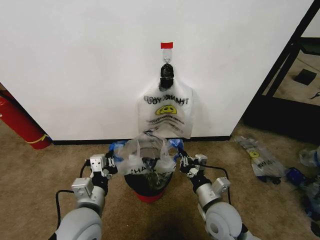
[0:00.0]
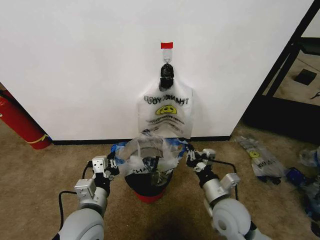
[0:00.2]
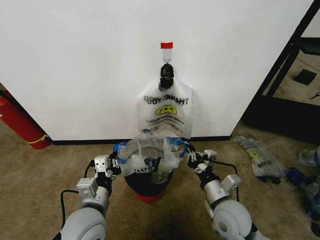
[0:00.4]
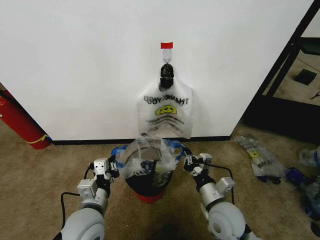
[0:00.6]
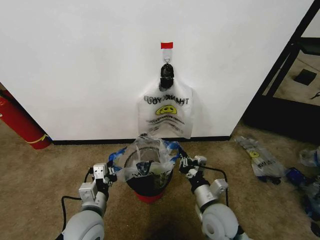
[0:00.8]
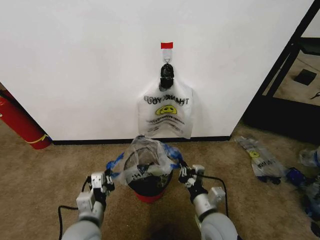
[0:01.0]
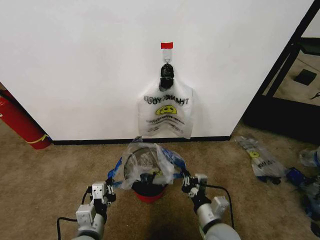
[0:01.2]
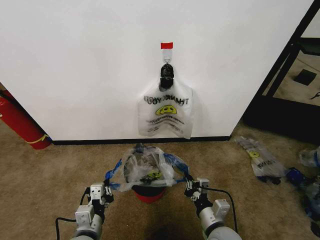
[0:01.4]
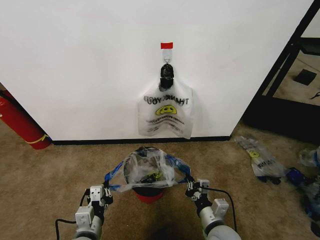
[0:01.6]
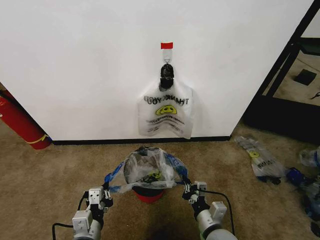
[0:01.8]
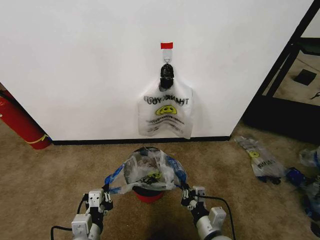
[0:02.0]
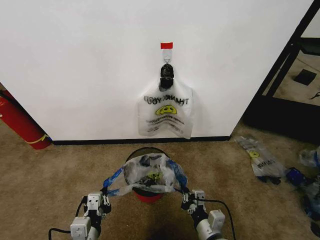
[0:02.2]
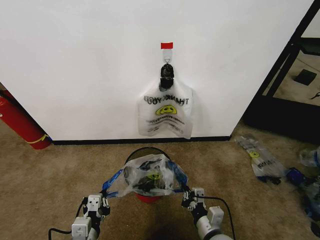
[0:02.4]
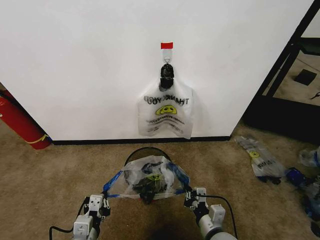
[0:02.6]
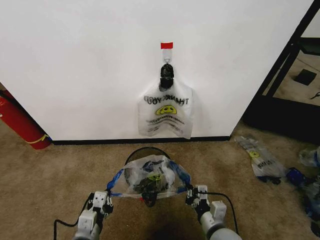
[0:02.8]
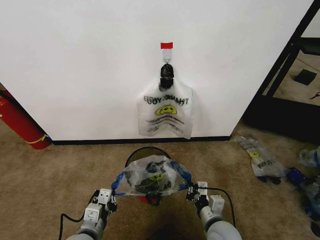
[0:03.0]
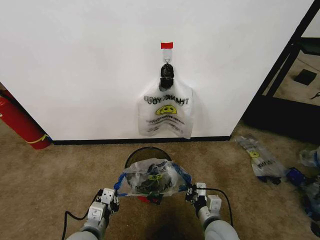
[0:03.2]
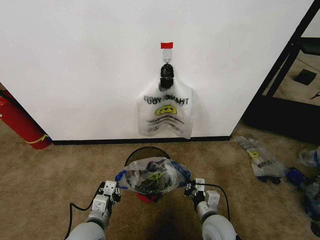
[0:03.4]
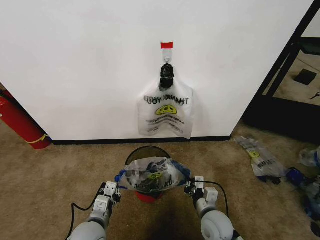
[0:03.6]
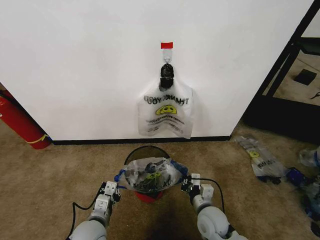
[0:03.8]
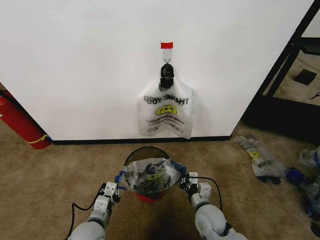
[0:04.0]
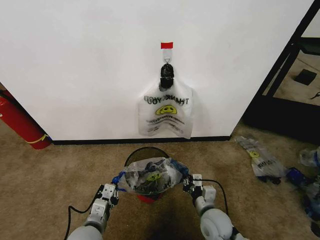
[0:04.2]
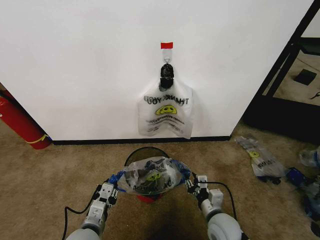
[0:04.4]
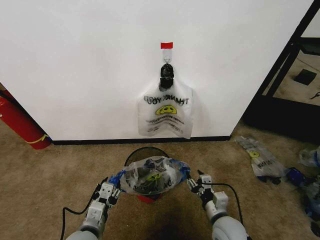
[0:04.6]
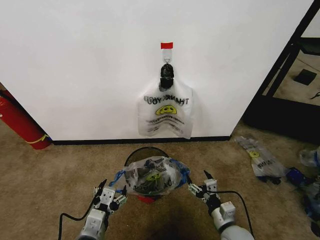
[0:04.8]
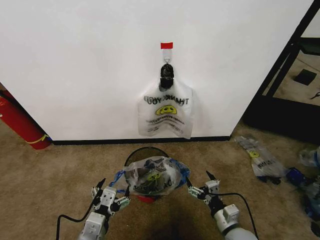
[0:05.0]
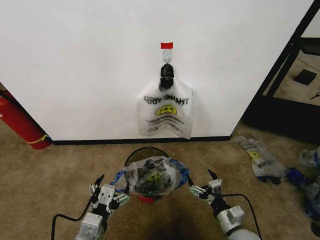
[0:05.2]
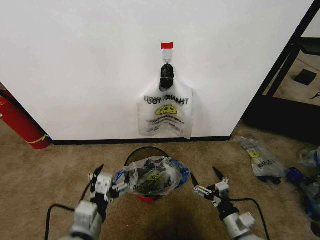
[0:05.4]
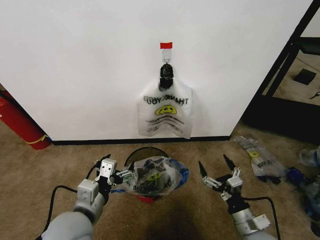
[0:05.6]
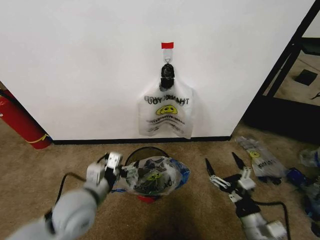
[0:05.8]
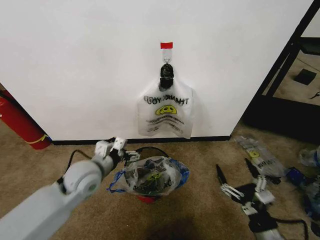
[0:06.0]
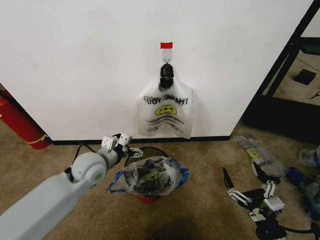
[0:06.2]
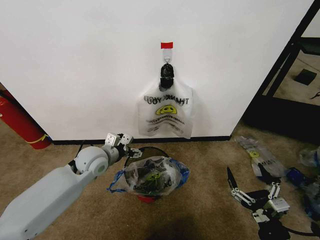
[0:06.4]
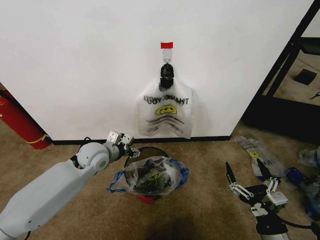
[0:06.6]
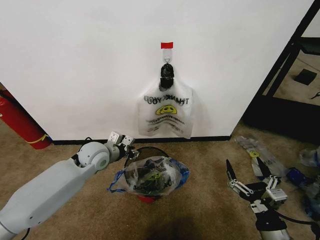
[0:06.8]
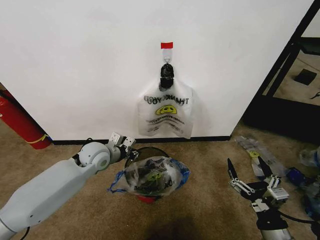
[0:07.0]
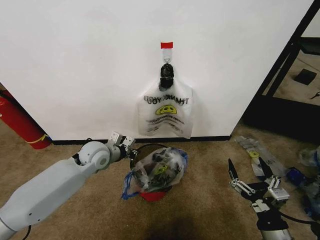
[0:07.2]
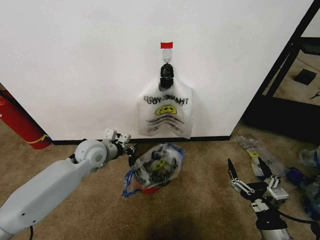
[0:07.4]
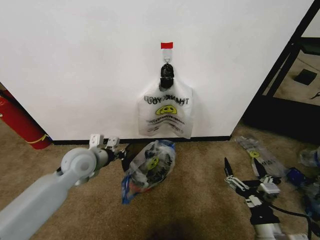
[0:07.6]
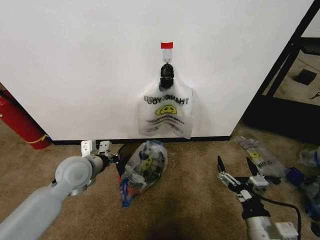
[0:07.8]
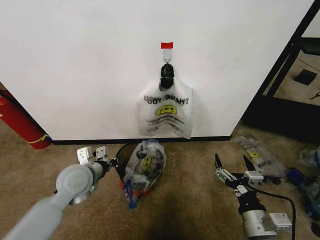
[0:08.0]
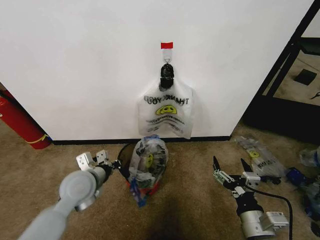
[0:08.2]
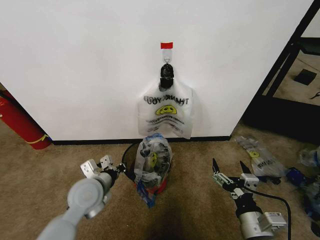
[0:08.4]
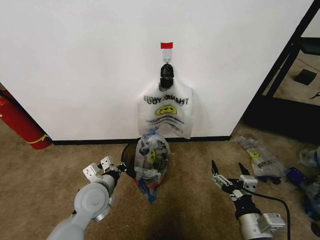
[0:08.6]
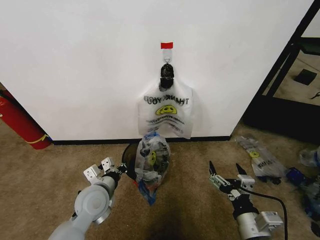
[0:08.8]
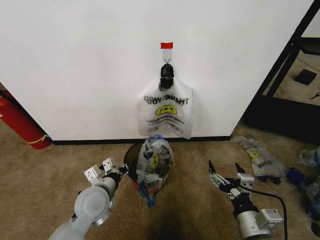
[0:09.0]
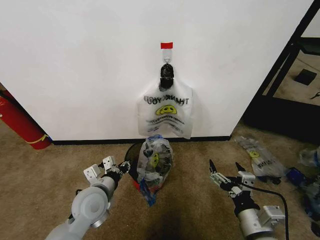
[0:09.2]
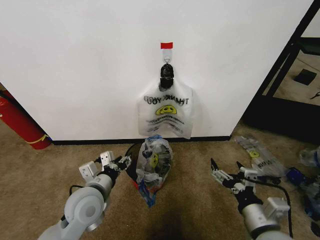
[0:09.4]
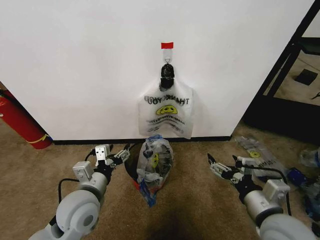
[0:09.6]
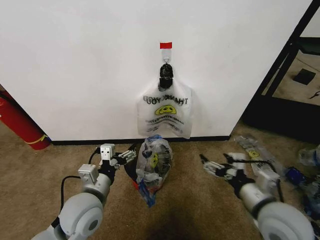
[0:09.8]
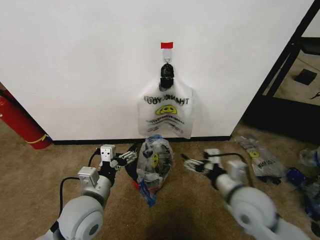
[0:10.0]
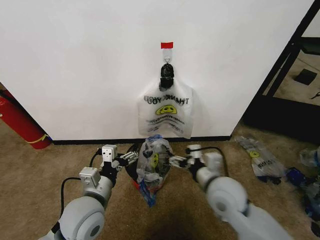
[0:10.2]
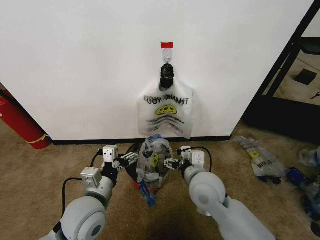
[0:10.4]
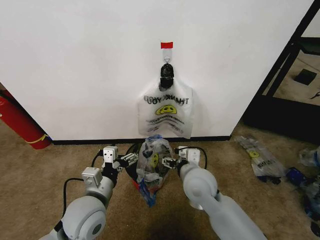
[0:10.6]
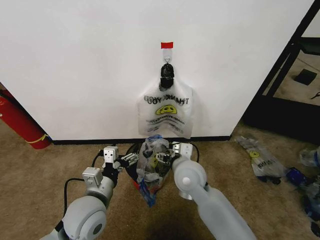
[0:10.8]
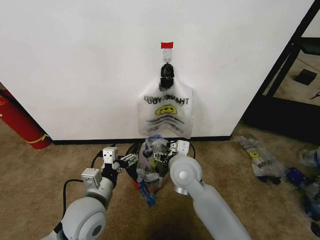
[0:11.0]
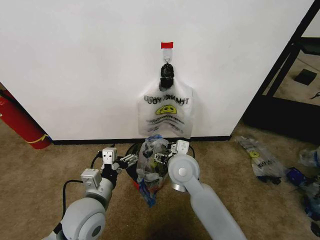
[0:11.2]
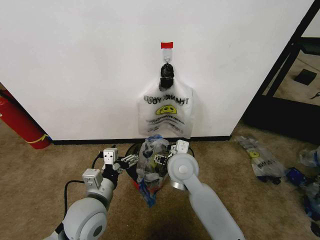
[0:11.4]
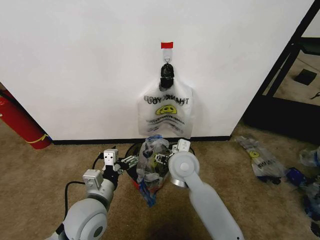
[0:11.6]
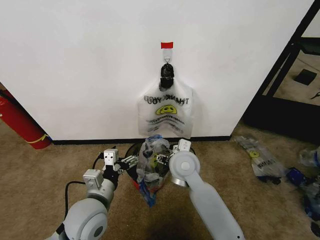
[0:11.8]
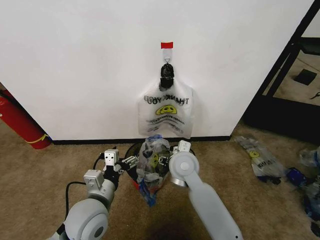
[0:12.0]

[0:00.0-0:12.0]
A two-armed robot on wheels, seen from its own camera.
Task of the whole recording: Pick up the garbage bag from the wall and place it over the trash bin.
0:00.0 to 0:01.6: The right gripper is displaced downward by roughly 5 cm; the left gripper moves downward and backward, about 10 cm.
0:01.6 to 0:03.0: The grippers make only small movements.
0:03.0 to 0:04.4: The right gripper opens its fingers. Meanwhile the left gripper opens.
0:04.4 to 0:06.0: The left gripper heads forward and upward, covering some 20 cm, and opens up. The right gripper moves to the right, backward and upward, roughly 15 cm, and opens up.
0:06.0 to 0:07.6: The left gripper shifts some 5 cm forward, and closes its fingers.
0:07.6 to 0:09.0: The left gripper shifts roughly 10 cm backward and downward; the right gripper changes place by approximately 5 cm.
0:09.0 to 0:10.4: The left gripper travels backward and upward by some 5 cm, and opens. Meanwhile the right gripper shifts about 20 cm forward and to the left.
0:10.4 to 0:12.0: The right gripper shifts approximately 10 cm forward and to the left.

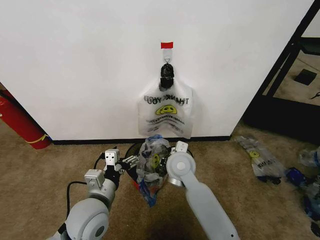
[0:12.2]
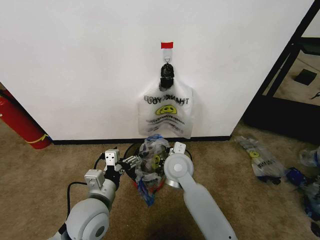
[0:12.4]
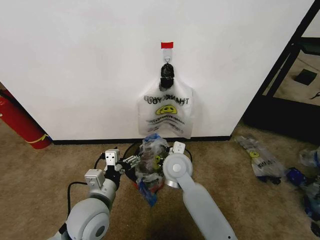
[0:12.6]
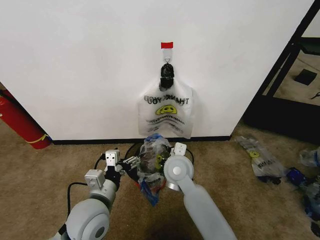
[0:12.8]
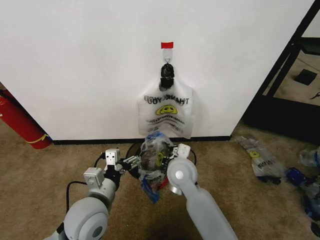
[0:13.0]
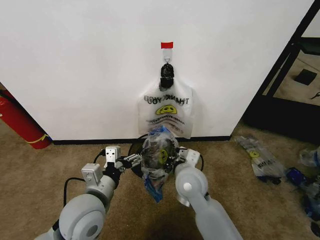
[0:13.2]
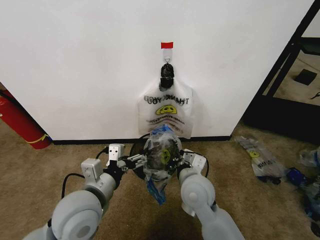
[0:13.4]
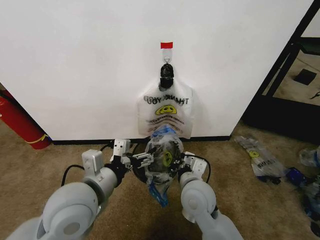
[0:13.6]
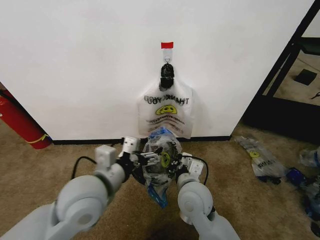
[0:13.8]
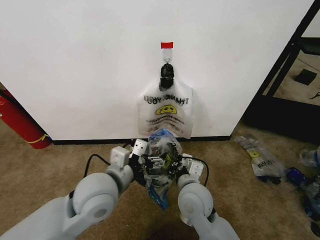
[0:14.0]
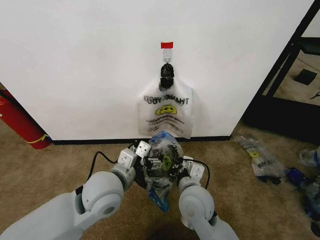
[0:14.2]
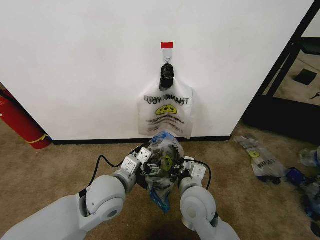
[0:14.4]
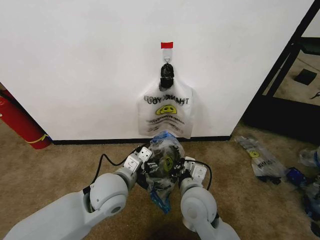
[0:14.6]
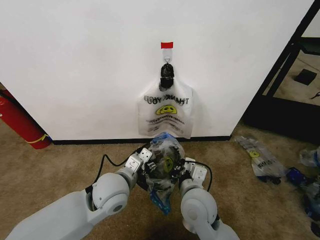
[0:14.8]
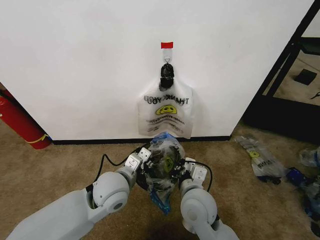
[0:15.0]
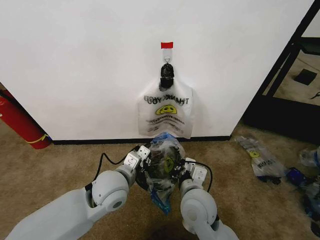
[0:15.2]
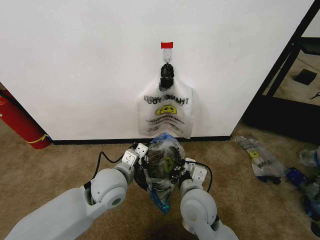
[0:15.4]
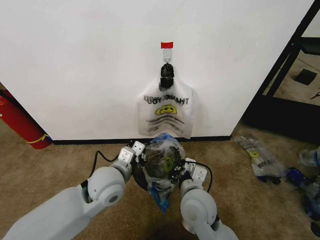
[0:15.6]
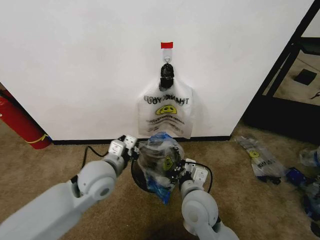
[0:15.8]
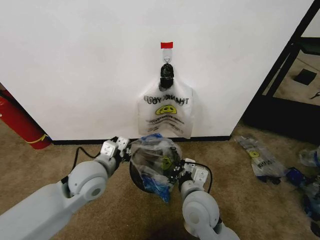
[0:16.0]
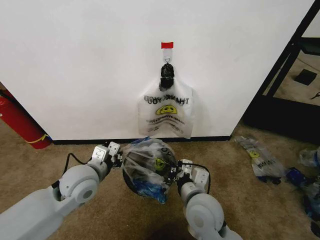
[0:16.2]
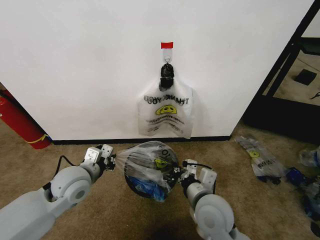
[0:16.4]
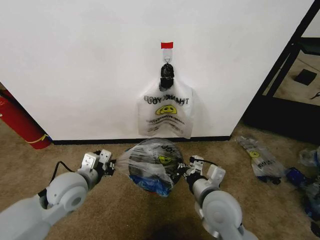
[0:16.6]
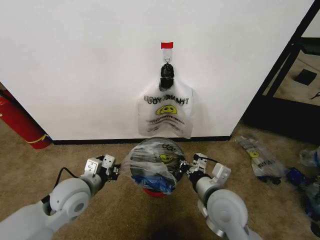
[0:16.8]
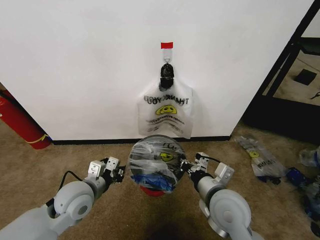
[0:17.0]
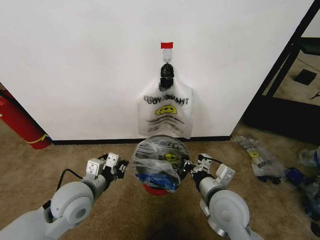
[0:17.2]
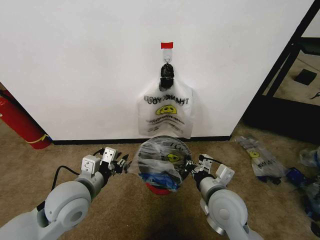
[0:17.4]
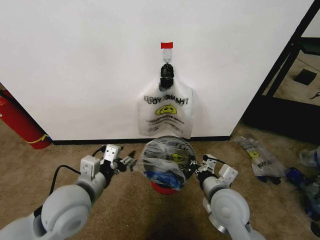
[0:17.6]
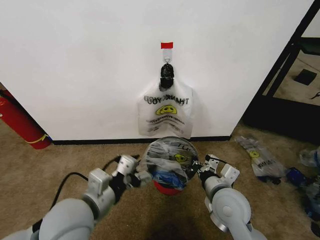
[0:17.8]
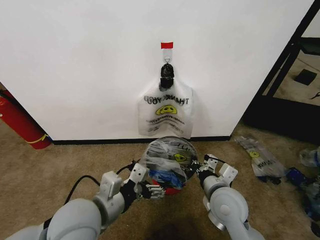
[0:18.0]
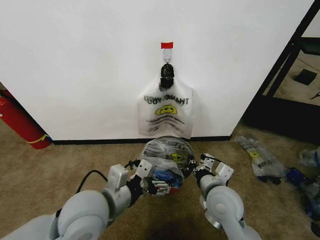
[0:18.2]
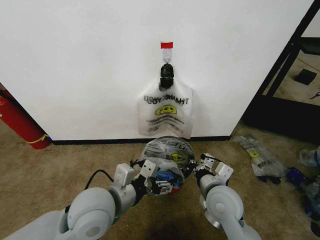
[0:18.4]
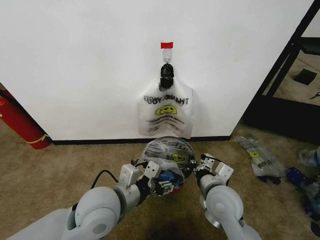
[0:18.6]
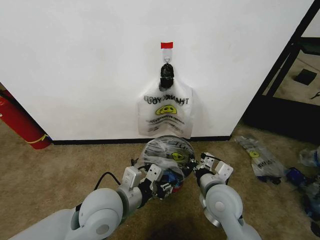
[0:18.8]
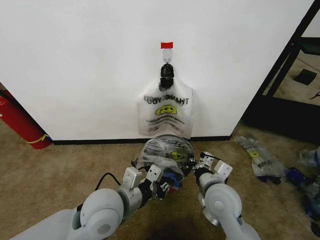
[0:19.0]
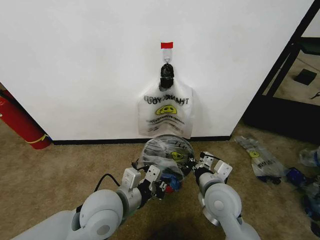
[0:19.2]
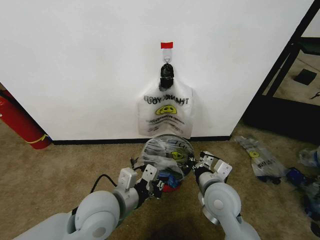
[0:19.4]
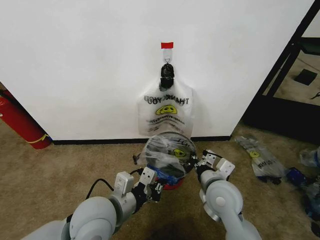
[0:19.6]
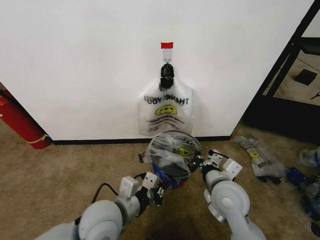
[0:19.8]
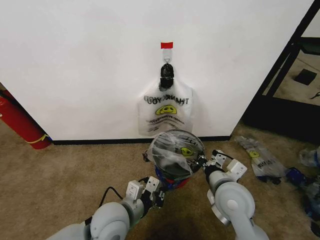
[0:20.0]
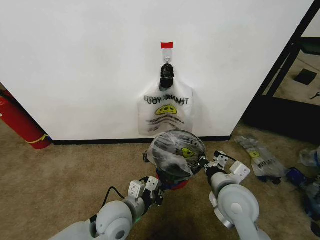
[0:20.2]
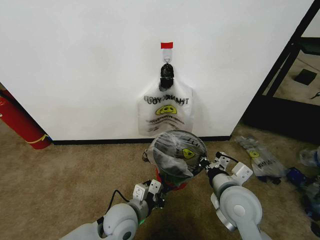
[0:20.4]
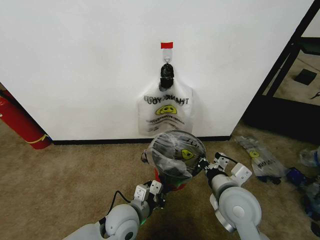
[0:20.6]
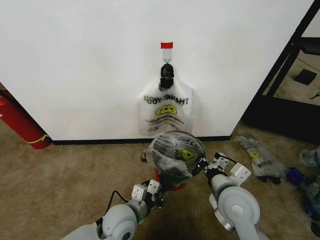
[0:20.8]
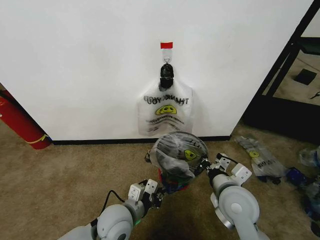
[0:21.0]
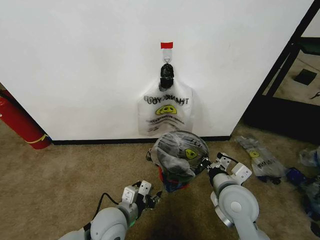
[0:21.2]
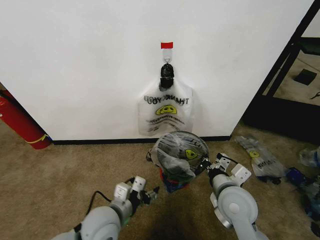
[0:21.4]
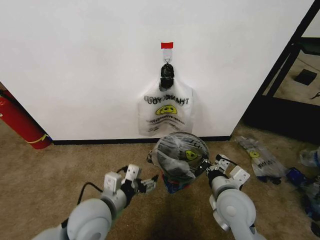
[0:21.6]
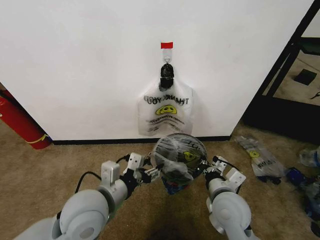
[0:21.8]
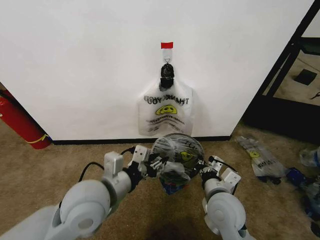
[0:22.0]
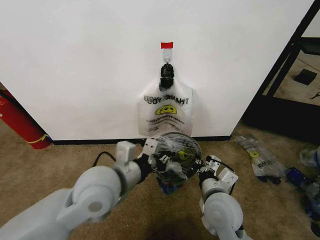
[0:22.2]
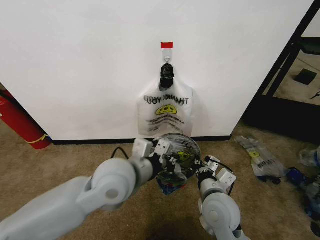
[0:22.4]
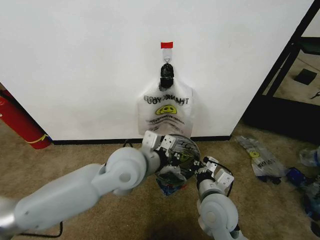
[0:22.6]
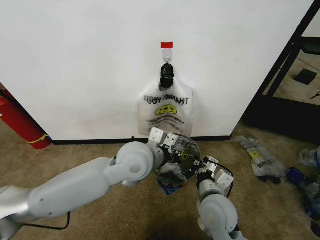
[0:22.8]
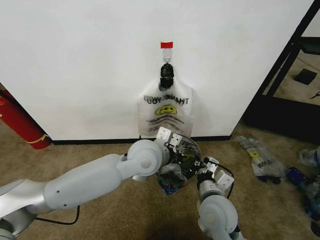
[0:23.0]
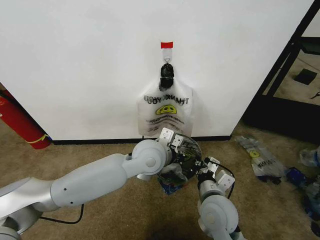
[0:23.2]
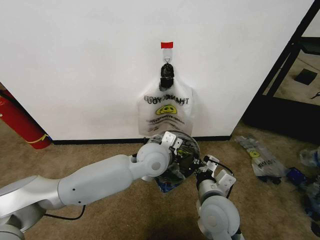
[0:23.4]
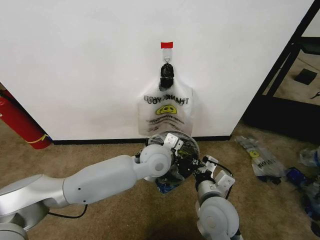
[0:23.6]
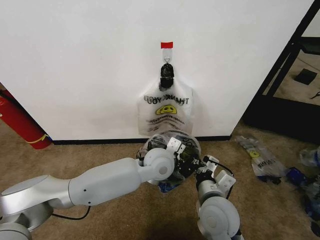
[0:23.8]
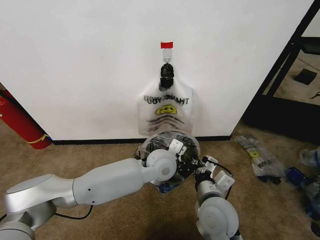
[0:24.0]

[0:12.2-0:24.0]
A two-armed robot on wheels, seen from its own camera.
Task of the whole recording: Pick up the garbage bag from the wall and place it over the trash bin.
0:12.2 to 0:13.6: The left gripper heads upward, covering about 10 cm. The right gripper shifts about 10 cm backward, and closes.
0:13.6 to 0:15.2: The left gripper goes some 10 cm downward and forward, and closes up.
0:15.2 to 0:16.6: The left gripper travels to the left by approximately 10 cm, while the right gripper heads to the right, covering roughly 5 cm.
0:16.6 to 0:18.2: The left gripper heads to the right, backward and upward, covering roughly 15 cm, and opens its fingers.
0:18.2 to 0:19.6: The left gripper closes its fingers.
0:19.6 to 0:21.0: The left gripper heads downward, covering roughly 10 cm.
0:21.0 to 0:22.6: The right gripper shifts by roughly 5 cm. The left gripper travels upward and forward by roughly 20 cm, and opens, then closes once more.
0:22.6 to 0:24.0: The left gripper shifts roughly 15 cm downward, to the right and forward.
